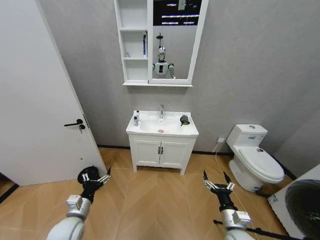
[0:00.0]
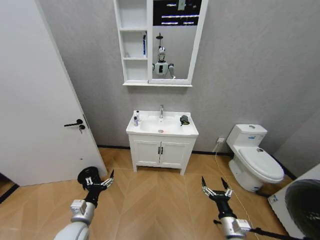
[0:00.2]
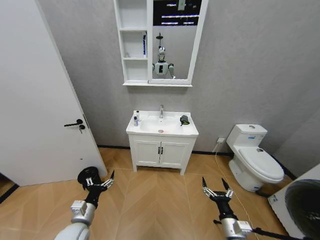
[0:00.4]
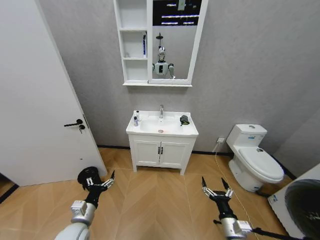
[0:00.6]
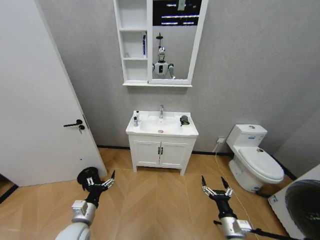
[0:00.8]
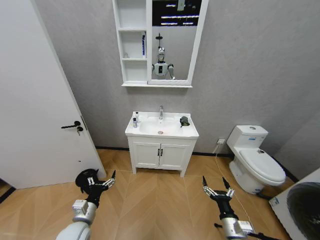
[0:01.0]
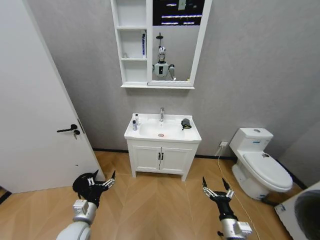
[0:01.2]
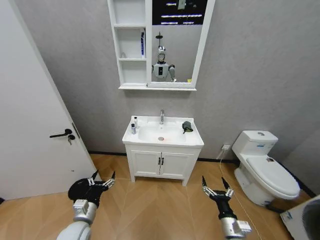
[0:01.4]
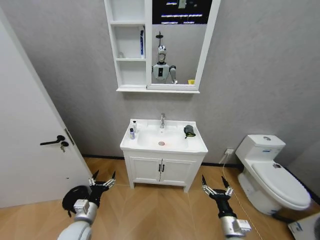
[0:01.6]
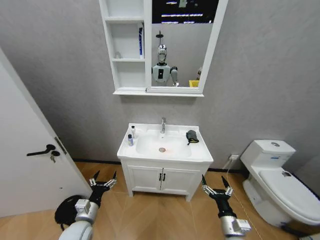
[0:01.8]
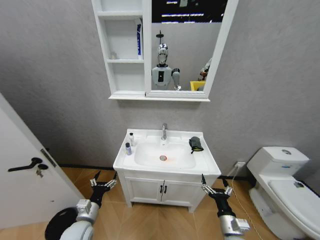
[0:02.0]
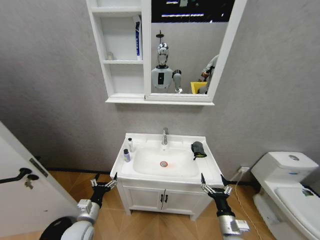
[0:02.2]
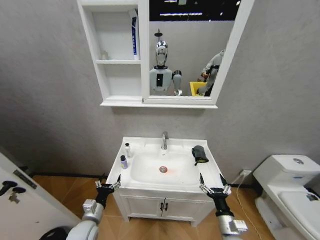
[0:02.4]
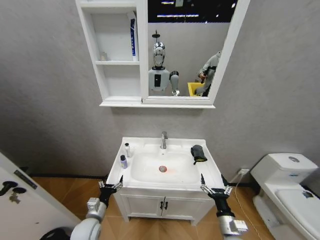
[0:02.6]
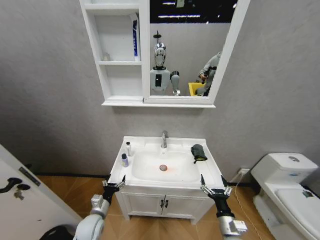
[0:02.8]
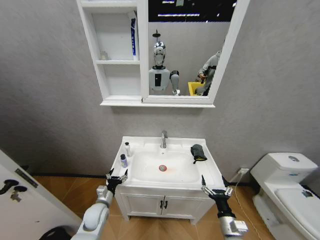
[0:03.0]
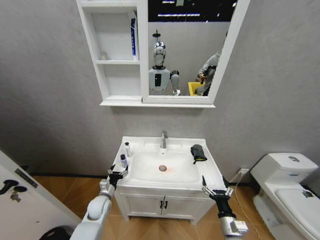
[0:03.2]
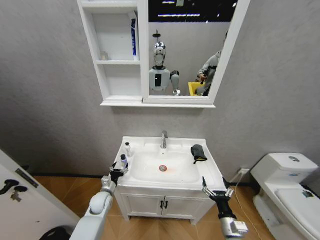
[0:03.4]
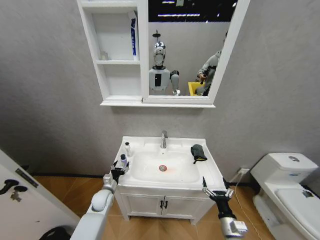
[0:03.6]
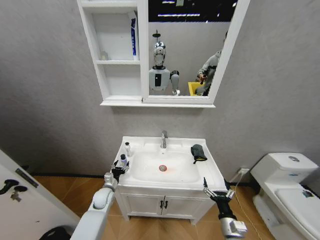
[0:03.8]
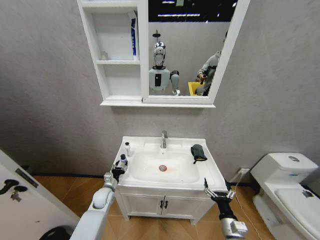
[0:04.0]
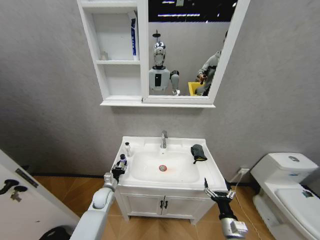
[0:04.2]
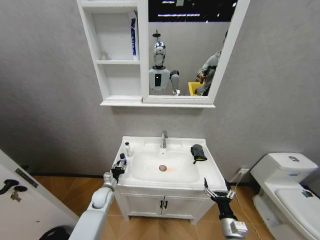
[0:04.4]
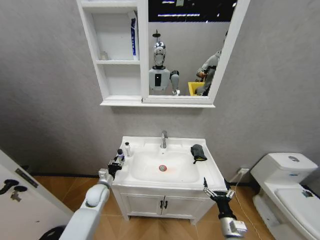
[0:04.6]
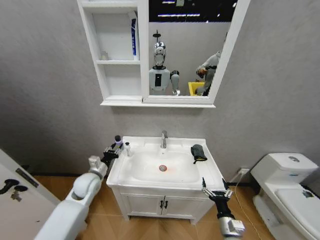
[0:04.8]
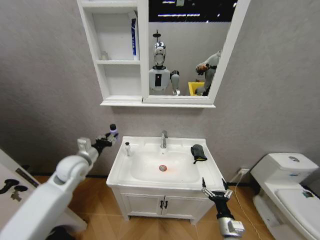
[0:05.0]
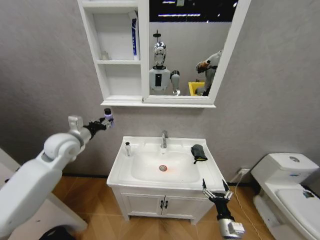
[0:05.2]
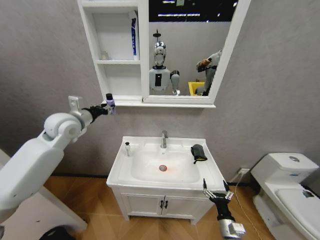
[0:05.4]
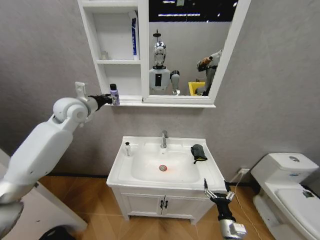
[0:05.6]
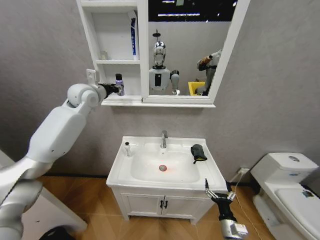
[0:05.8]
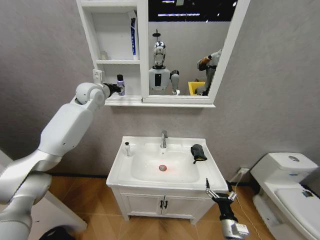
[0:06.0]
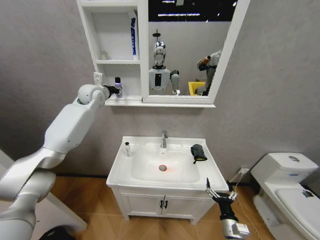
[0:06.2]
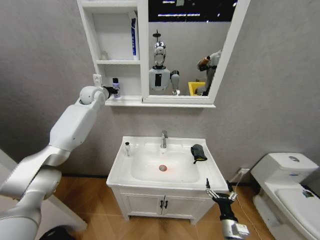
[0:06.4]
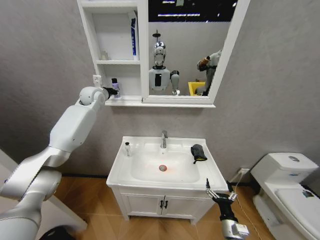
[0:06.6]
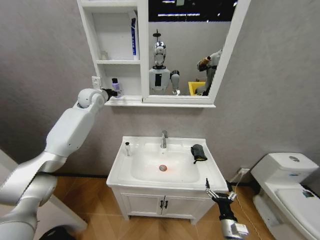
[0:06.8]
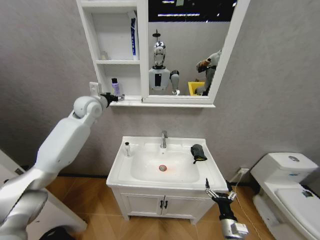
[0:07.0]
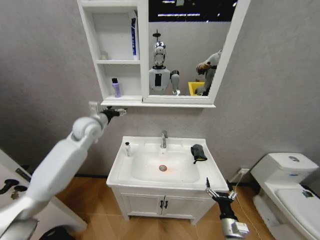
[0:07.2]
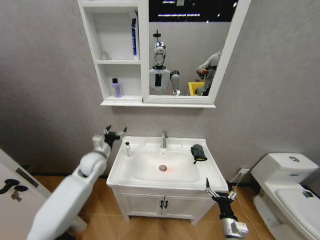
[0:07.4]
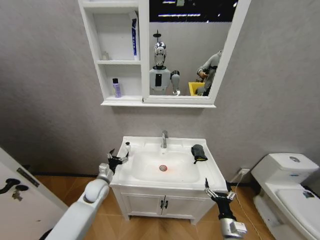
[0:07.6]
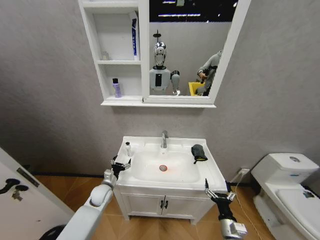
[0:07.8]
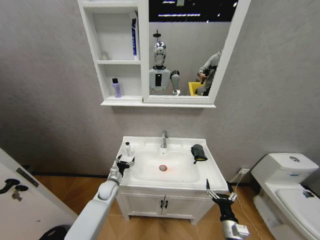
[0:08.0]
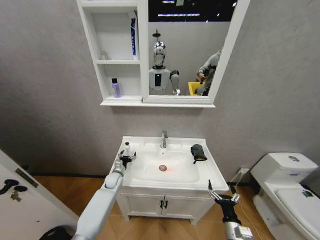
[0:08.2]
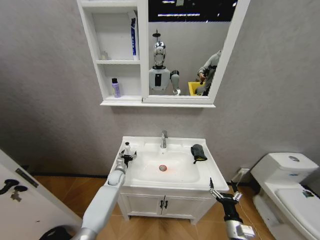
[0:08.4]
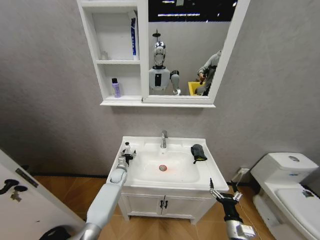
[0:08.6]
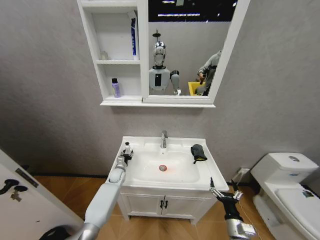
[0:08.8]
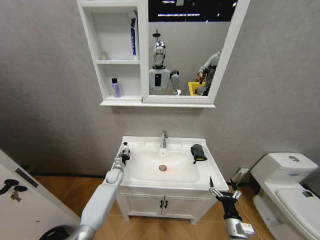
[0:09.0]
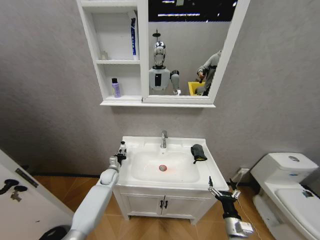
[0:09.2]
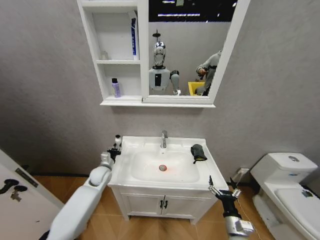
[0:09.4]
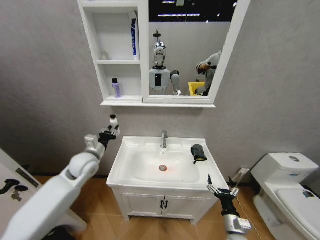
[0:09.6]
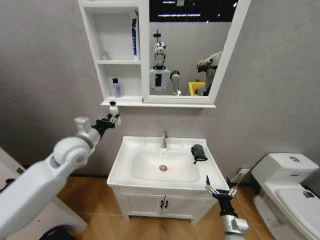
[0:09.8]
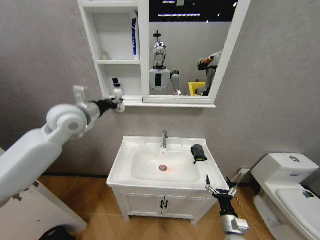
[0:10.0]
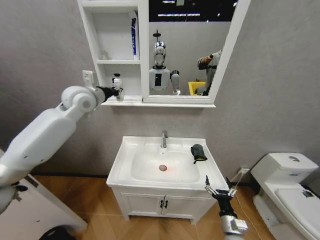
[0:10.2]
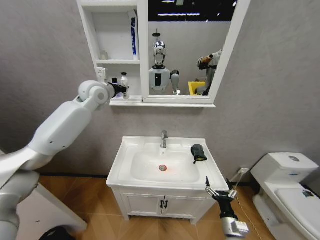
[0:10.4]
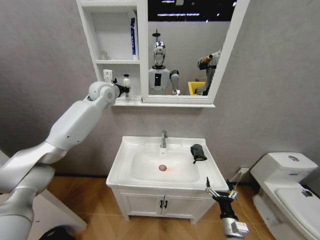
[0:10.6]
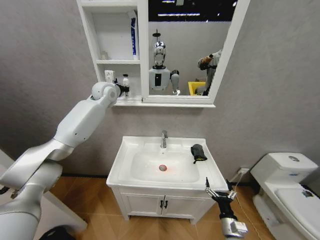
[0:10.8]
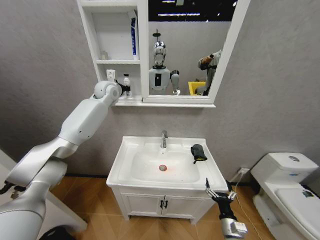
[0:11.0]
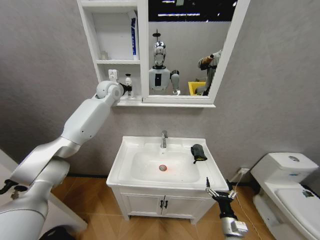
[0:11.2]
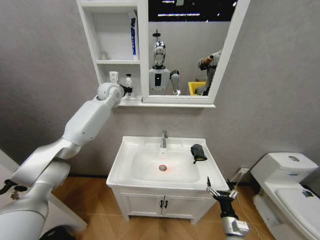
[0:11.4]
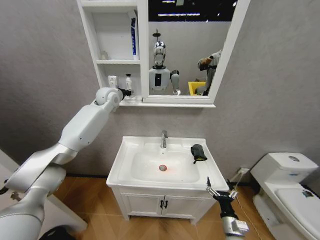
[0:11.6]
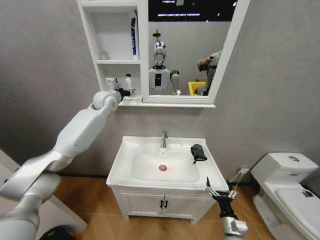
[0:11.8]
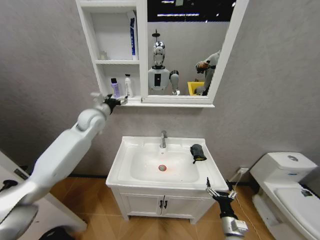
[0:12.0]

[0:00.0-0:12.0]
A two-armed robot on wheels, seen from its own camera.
Task of the whole recording: Move facial cleanser and shampoo from washbasin to cabinet, then wipe washbasin with towel.
0:01.6 to 0:03.0: The left gripper moves forward and downward, some 10 cm.
0:03.0 to 0:04.4: The left gripper heads forward, covering approximately 10 cm, and closes its fingers.
0:04.4 to 0:06.0: The left gripper moves upward, about 50 cm.
0:06.0 to 0:07.6: The left gripper moves downward and backward, roughly 40 cm, and opens its fingers.
0:07.6 to 0:09.0: The left gripper heads forward and downward, covering approximately 15 cm, and closes its fingers.
0:09.0 to 0:10.4: The left gripper moves upward, some 50 cm.
0:10.4 to 0:12.0: The left gripper travels downward by roughly 10 cm, and opens up.

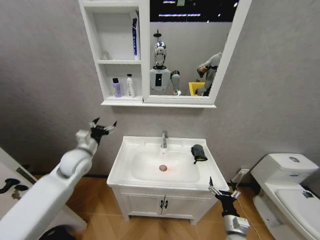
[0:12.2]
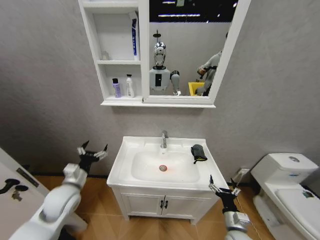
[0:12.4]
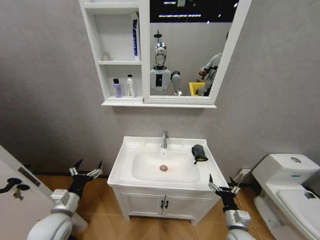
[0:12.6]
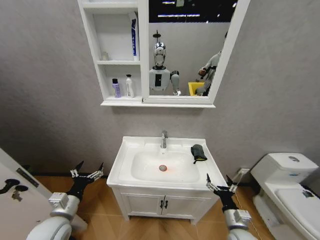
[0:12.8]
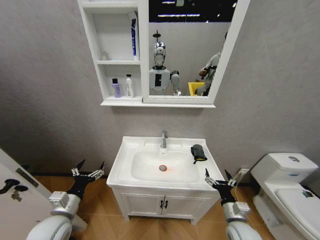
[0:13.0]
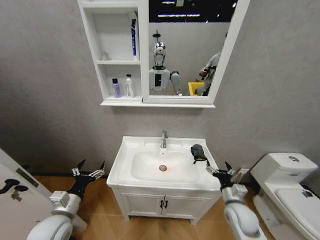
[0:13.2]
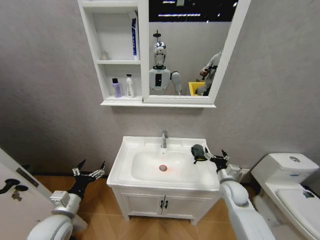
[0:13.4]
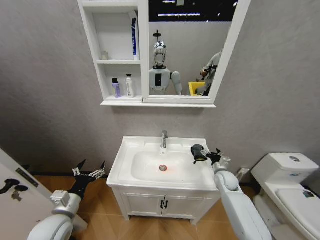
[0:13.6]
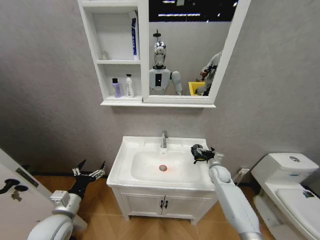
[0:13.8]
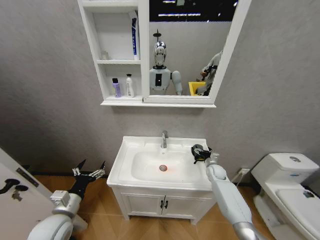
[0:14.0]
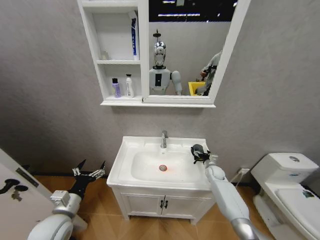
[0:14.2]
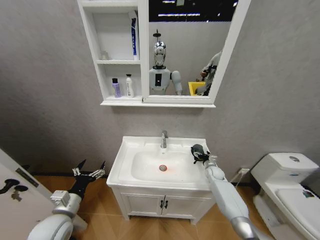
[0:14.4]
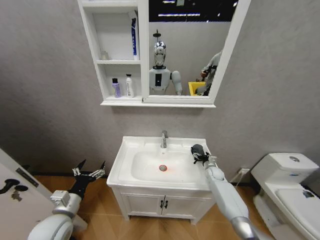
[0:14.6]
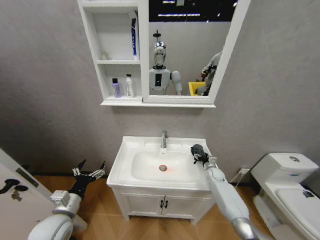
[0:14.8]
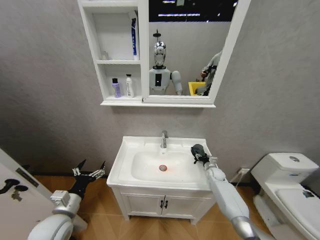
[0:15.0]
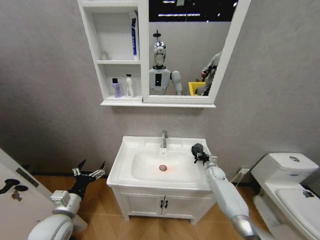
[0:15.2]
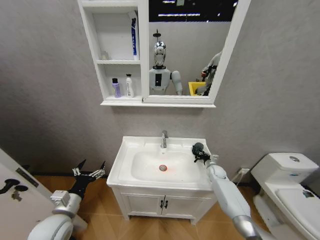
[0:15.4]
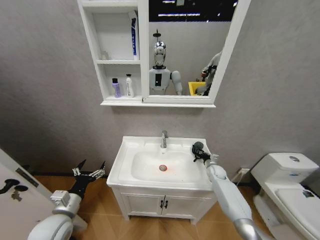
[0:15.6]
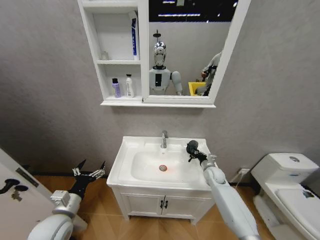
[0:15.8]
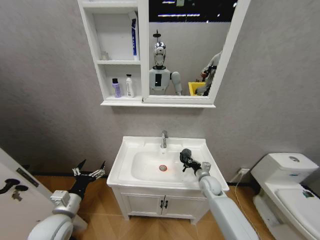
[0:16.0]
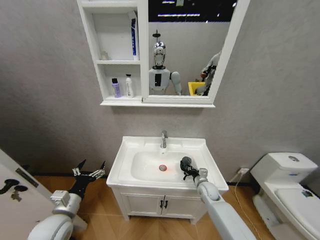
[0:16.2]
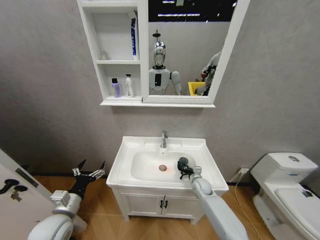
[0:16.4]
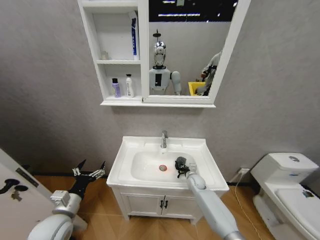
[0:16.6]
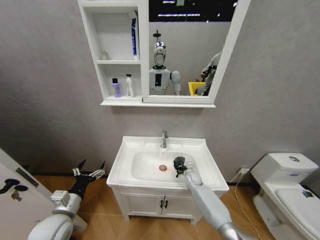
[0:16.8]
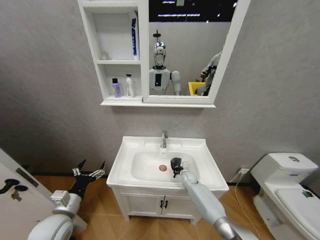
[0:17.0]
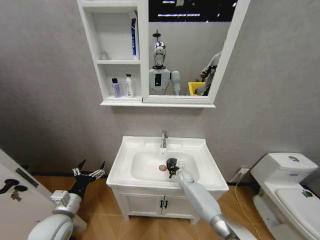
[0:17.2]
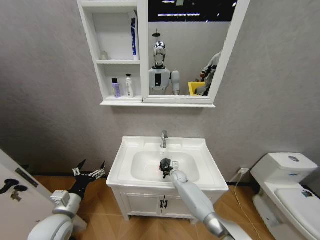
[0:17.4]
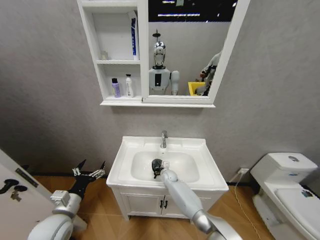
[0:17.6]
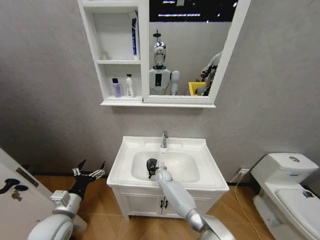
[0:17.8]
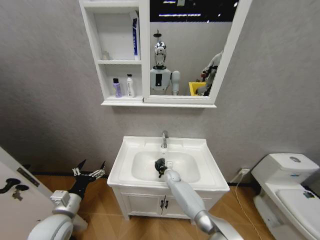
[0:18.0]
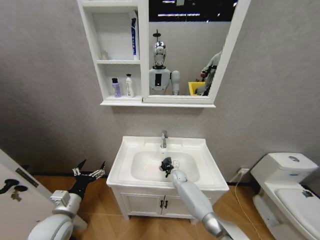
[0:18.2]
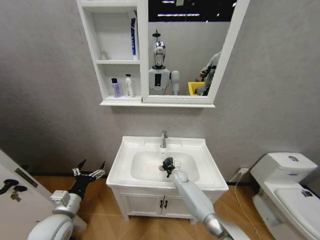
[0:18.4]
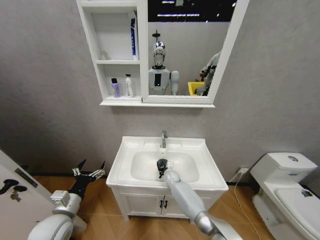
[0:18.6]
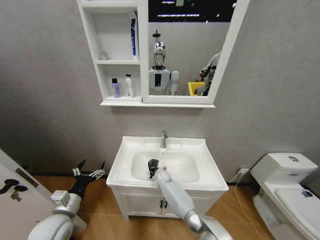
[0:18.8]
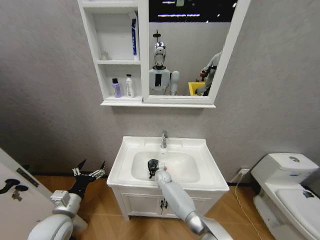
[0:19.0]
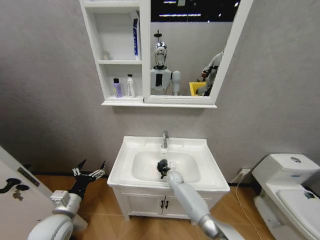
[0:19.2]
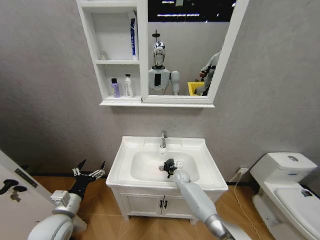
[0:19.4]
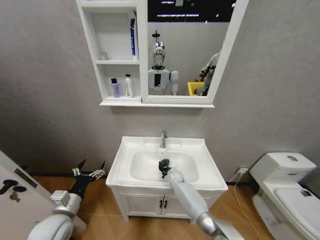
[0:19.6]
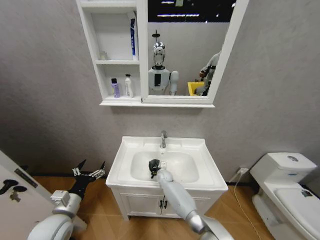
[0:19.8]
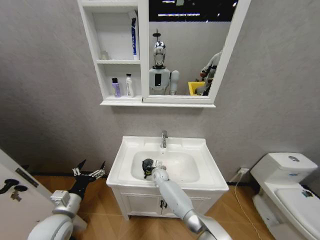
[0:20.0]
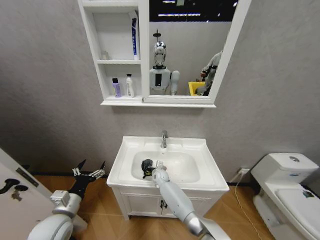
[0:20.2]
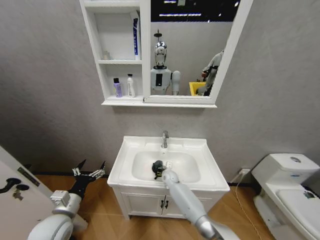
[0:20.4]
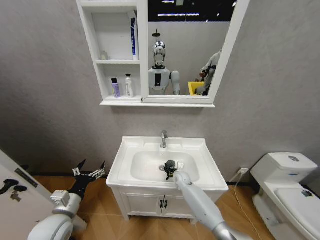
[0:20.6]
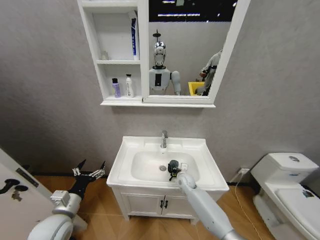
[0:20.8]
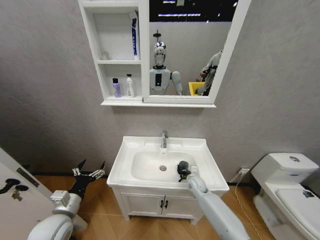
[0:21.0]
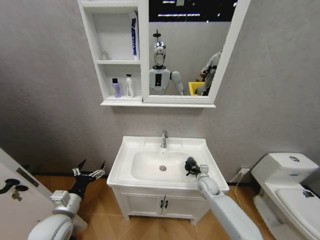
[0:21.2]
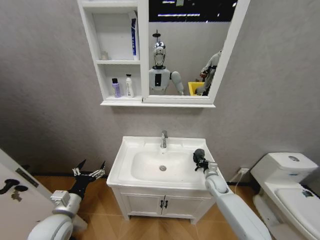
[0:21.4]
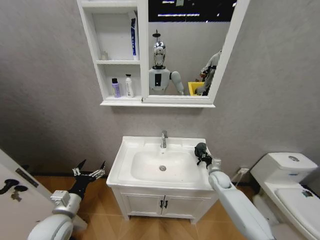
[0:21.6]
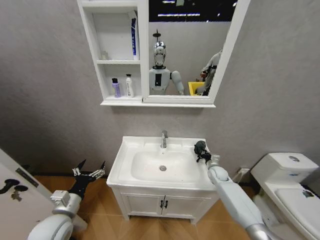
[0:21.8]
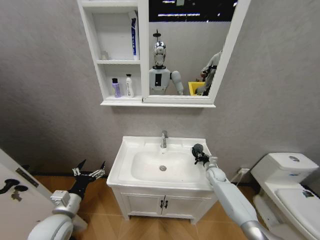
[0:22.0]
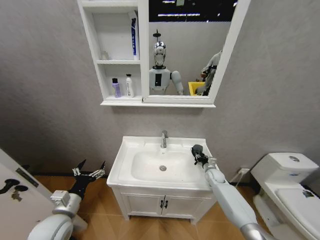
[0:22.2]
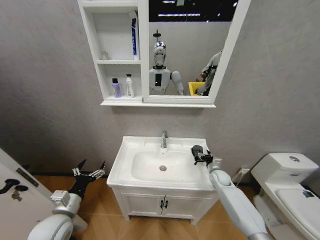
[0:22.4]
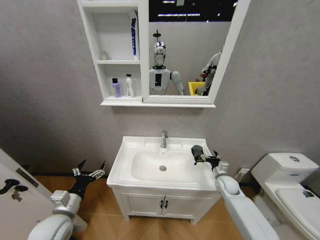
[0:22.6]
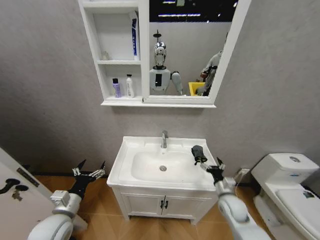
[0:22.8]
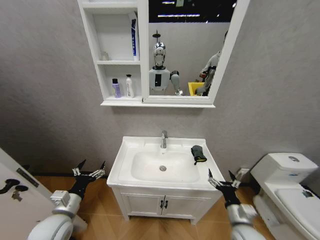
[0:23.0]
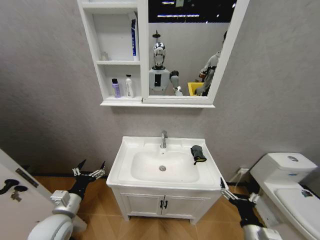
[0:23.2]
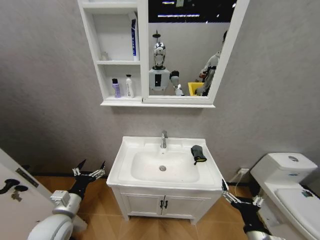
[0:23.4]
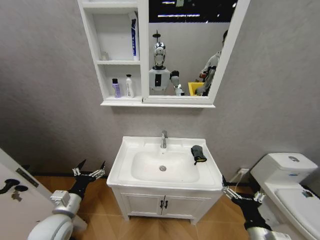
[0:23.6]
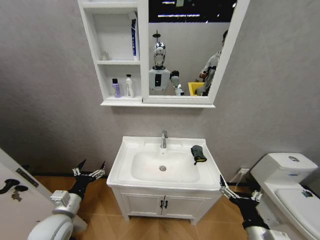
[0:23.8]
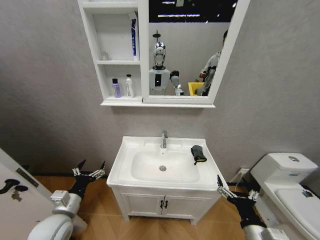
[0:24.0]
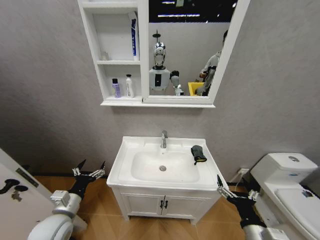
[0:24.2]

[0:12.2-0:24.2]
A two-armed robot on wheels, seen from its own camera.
Task of the whole recording: Move facial cleanser and shampoo from washbasin to cabinet, then wipe washbasin with towel.
0:12.2 to 0:13.8: The right gripper goes approximately 25 cm forward, while the left gripper moves backward and downward, roughly 20 cm.
0:13.8 to 0:15.2: The right gripper goes approximately 5 cm downward, and closes up.
0:15.2 to 0:16.6: The right gripper shifts approximately 15 cm to the left, and closes.
0:16.6 to 0:18.2: The right gripper moves to the left and forward, roughly 10 cm.
0:18.2 to 0:19.8: The right gripper goes left and right, approximately 10 cm each way, reversing 2 times.
0:19.8 to 0:21.2: The right gripper is displaced to the right and backward by approximately 25 cm.
0:21.2 to 0:22.6: The right gripper shifts some 10 cm to the right, and opens.
0:22.6 to 0:24.2: The right gripper goes approximately 30 cm backward.
